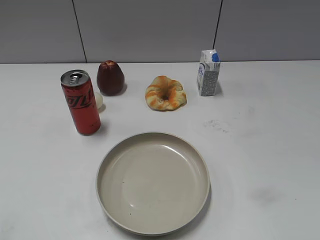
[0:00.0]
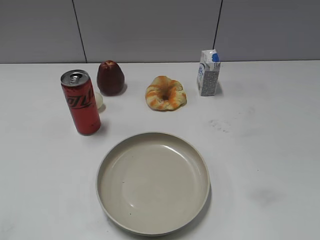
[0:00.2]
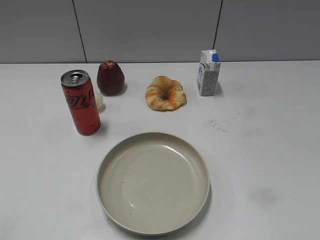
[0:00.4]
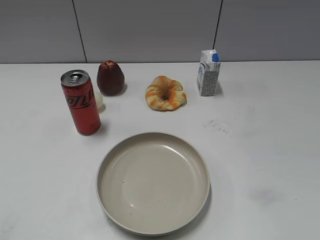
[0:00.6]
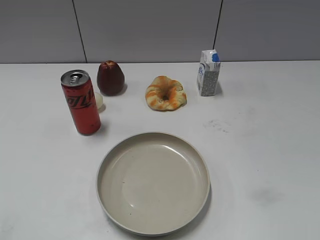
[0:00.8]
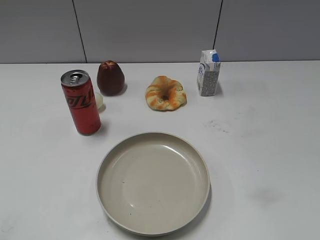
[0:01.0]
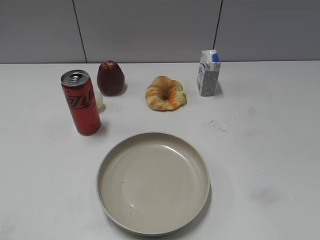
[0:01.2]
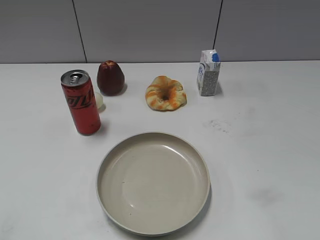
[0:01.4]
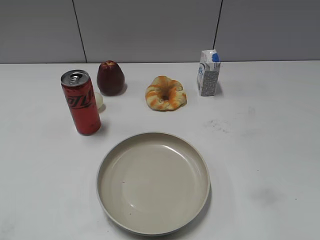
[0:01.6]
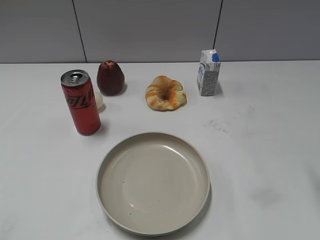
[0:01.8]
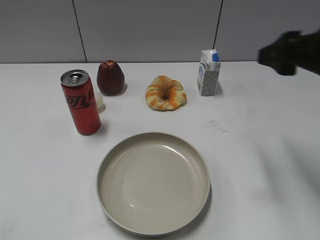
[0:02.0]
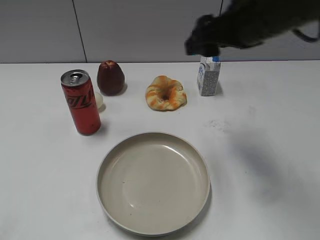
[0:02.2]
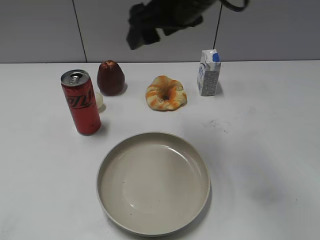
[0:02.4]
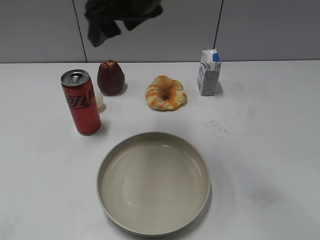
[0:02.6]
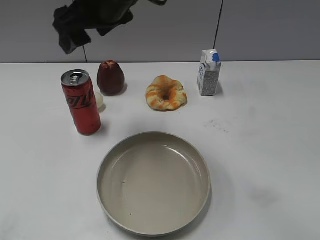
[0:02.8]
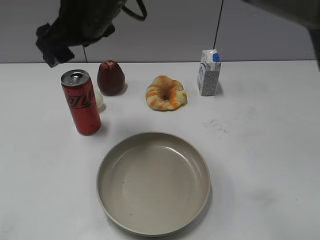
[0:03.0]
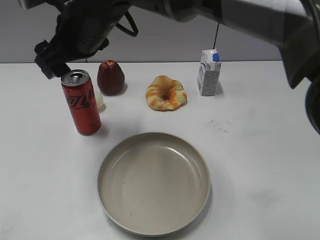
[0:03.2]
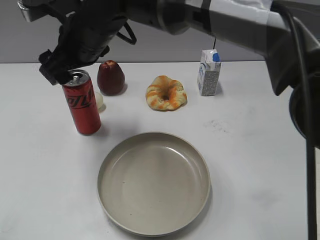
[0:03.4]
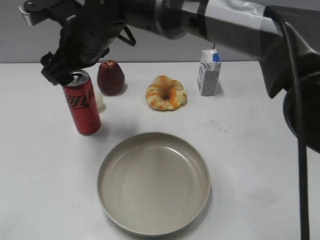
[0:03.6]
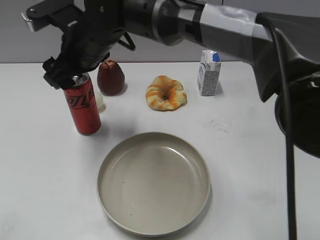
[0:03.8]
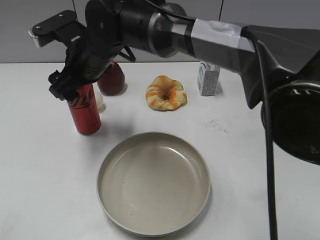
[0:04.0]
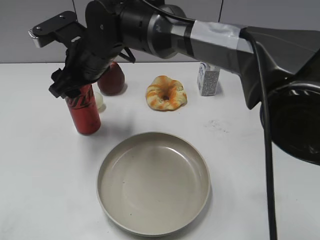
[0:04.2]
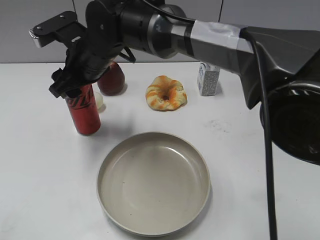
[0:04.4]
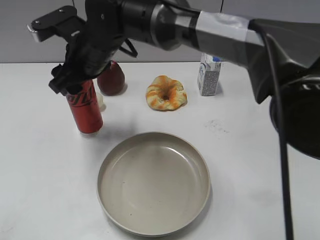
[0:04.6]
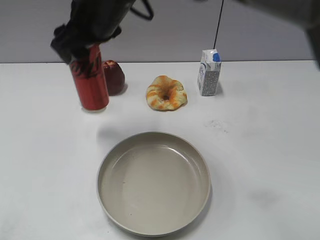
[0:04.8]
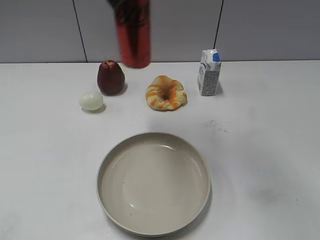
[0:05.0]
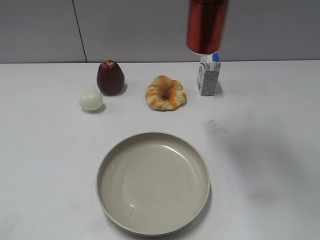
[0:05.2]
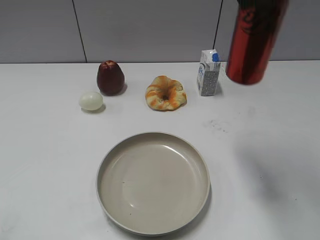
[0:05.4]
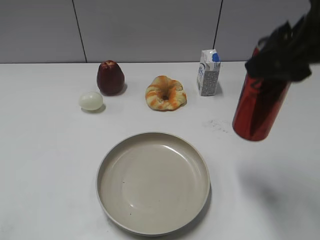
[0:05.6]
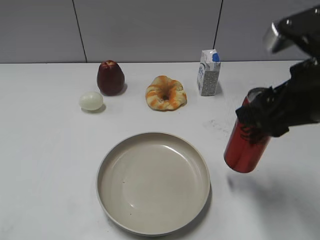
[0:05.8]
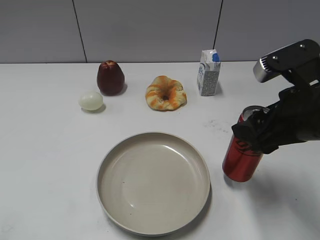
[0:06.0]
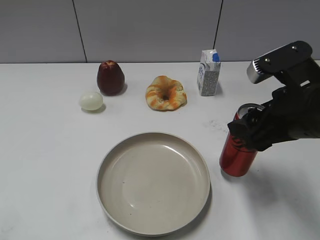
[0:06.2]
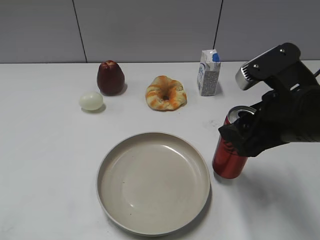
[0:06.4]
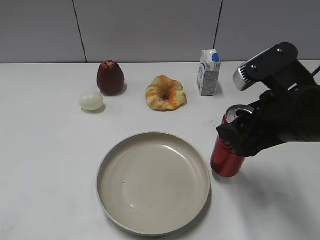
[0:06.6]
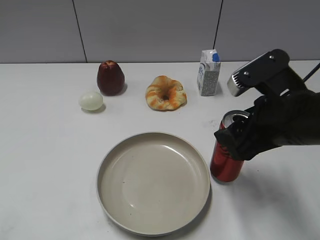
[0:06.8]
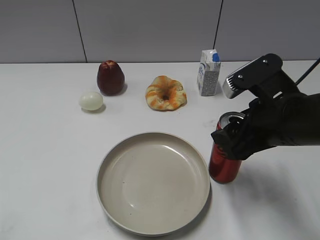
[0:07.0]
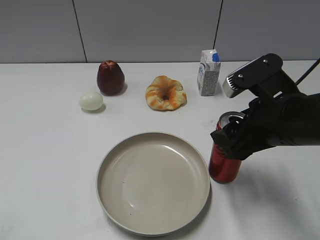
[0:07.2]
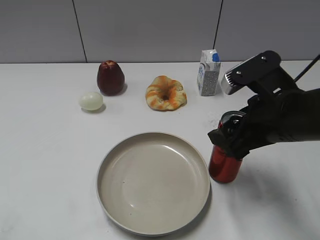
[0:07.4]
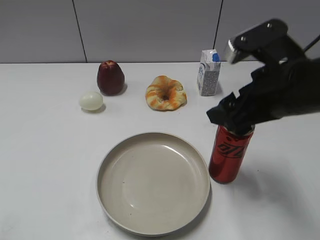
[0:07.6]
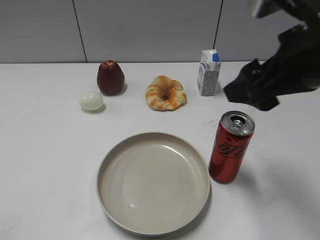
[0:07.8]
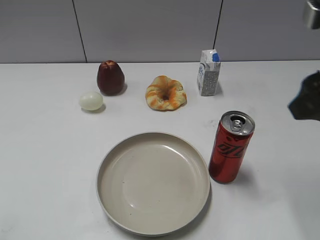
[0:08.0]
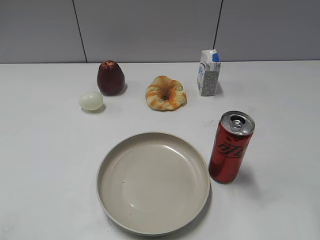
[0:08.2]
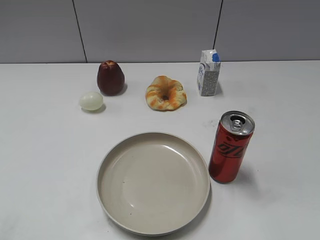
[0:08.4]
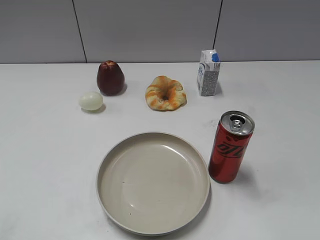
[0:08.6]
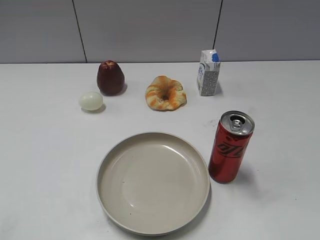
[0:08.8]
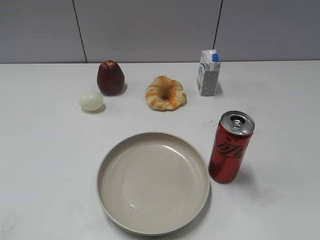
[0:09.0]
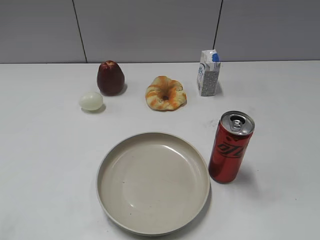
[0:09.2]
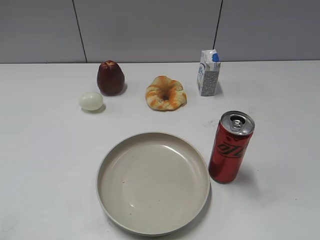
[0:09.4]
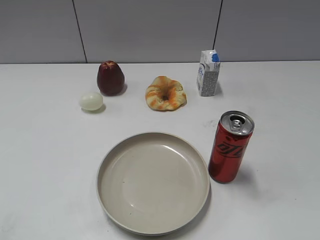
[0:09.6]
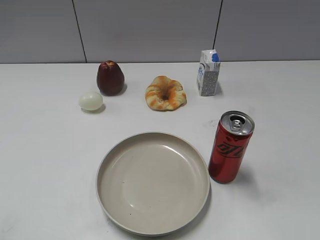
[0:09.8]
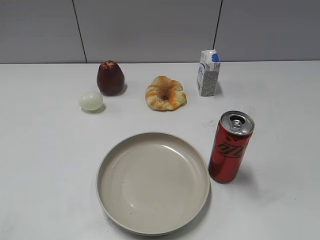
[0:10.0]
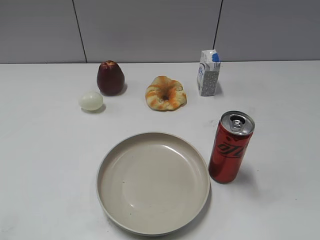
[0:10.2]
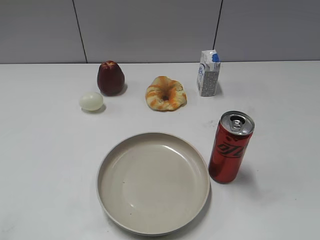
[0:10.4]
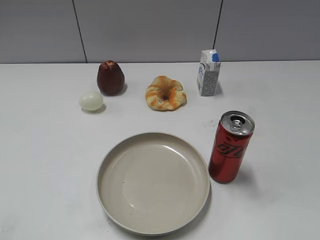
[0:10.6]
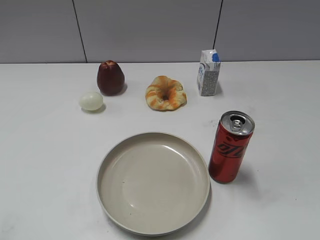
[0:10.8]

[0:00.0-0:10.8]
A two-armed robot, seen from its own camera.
Step, 0:01.0 to 0:04.4: Grasp the cola with right gripper.
Step, 0:04.6 to 0:07.6: Place the cola on the table with right gripper.
0:01.6 to 0:03.0: The right gripper shifts approximately 40 cm to the left and forward, and opens its fingers.
0:03.0 to 0:04.6: The right gripper moves downward, some 5 cm, and closes its fingers.
0:04.6 to 0:06.2: The right gripper goes roughly 30 cm to the right and backward.
0:06.2 to 0:07.8: The right gripper heads upward, covering some 10 cm, and opens its fingers.
0:07.8 to 0:09.2: The right gripper heads backward and to the right, covering some 20 cm, and closes.

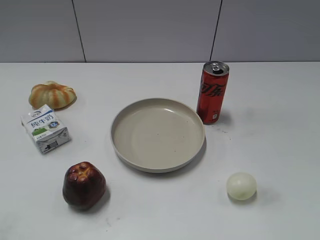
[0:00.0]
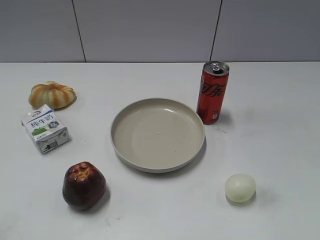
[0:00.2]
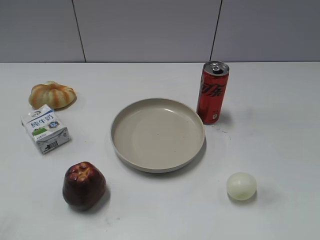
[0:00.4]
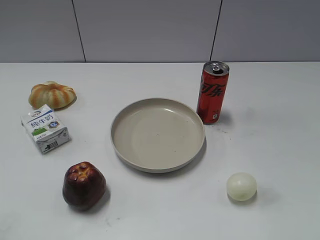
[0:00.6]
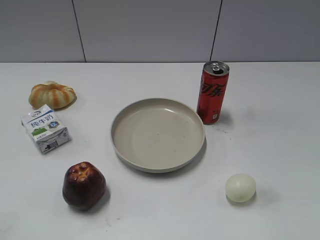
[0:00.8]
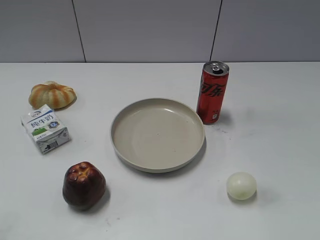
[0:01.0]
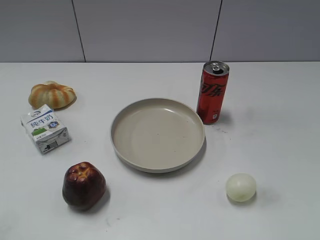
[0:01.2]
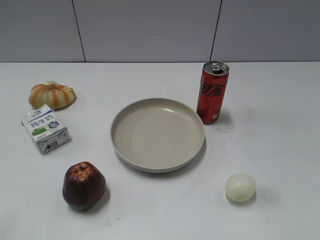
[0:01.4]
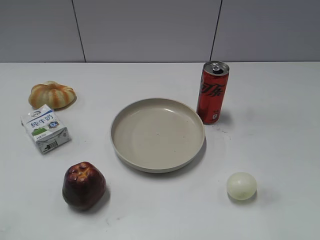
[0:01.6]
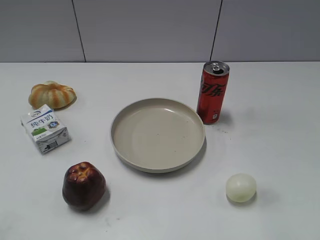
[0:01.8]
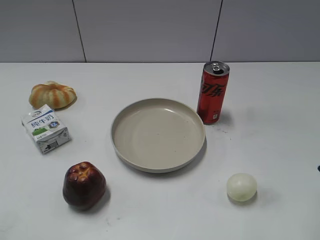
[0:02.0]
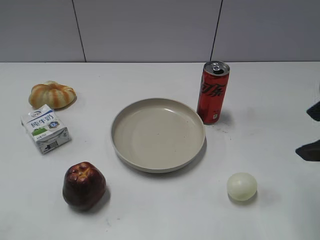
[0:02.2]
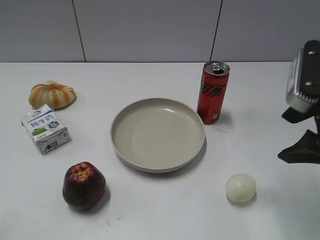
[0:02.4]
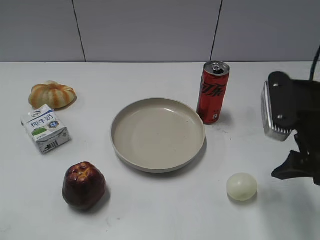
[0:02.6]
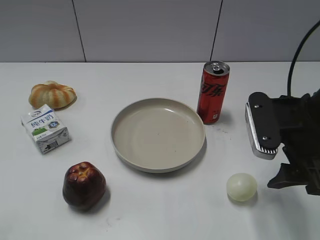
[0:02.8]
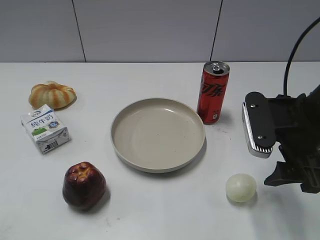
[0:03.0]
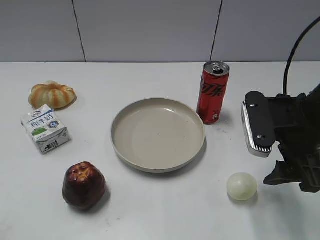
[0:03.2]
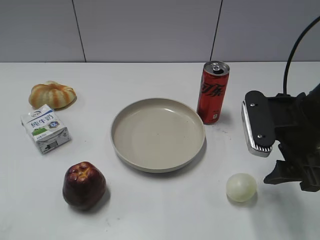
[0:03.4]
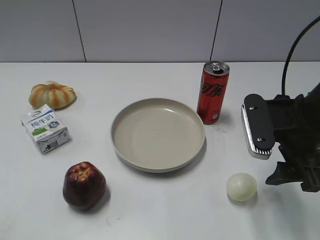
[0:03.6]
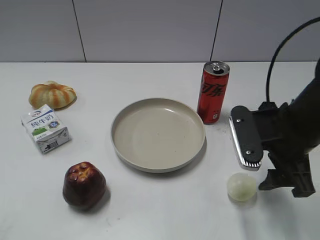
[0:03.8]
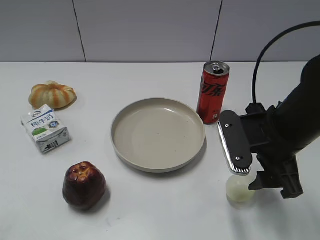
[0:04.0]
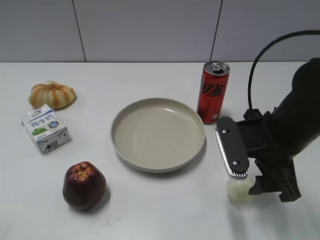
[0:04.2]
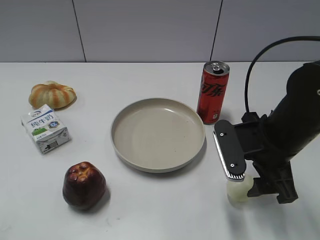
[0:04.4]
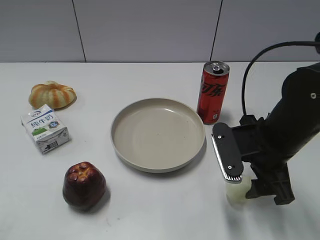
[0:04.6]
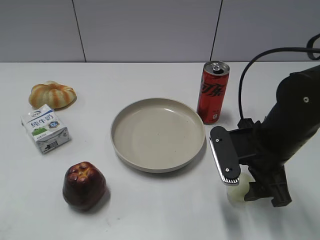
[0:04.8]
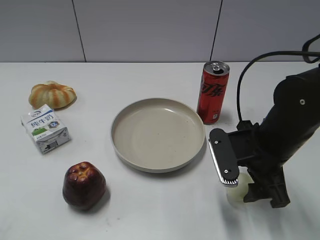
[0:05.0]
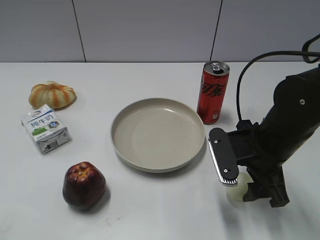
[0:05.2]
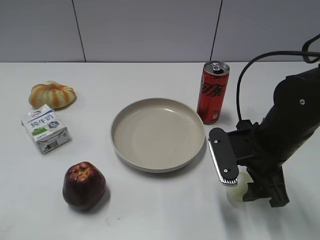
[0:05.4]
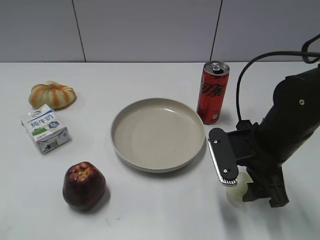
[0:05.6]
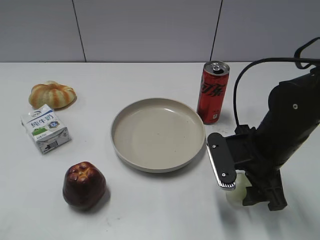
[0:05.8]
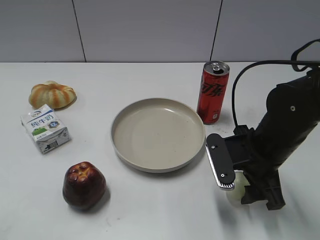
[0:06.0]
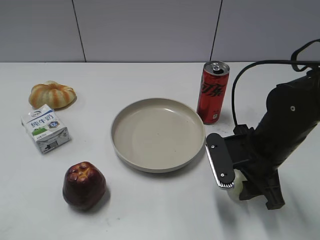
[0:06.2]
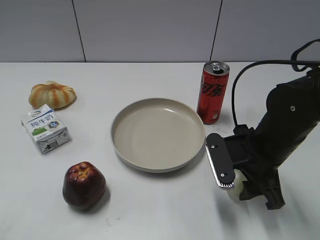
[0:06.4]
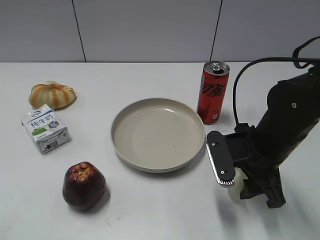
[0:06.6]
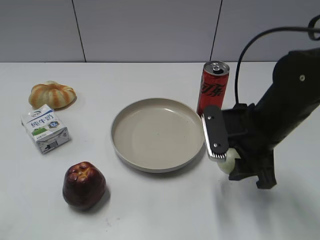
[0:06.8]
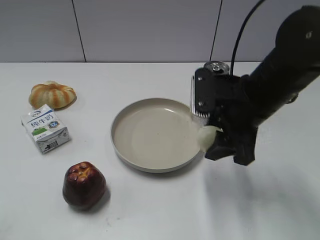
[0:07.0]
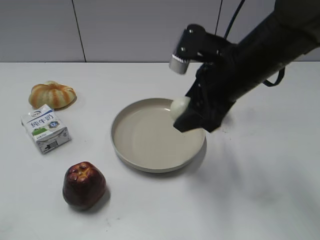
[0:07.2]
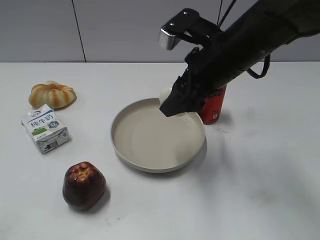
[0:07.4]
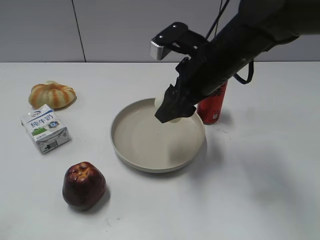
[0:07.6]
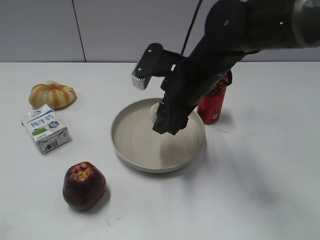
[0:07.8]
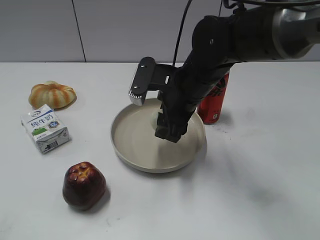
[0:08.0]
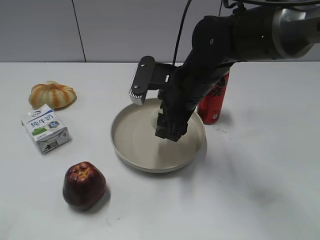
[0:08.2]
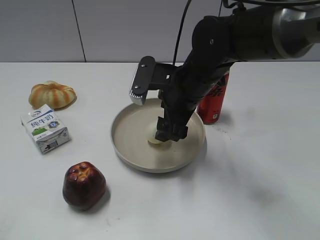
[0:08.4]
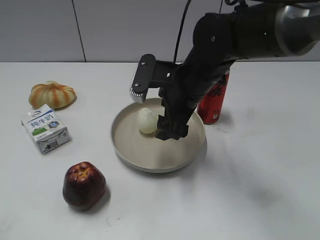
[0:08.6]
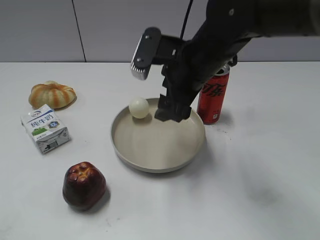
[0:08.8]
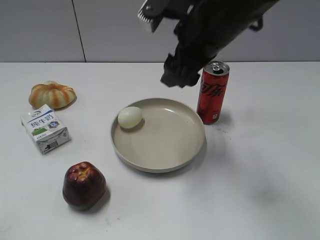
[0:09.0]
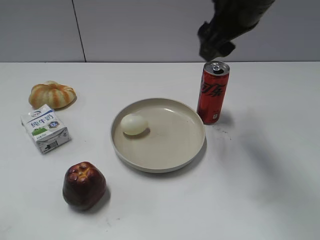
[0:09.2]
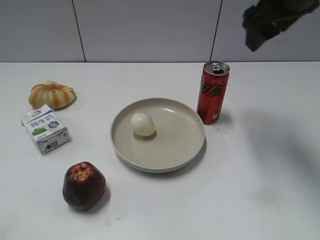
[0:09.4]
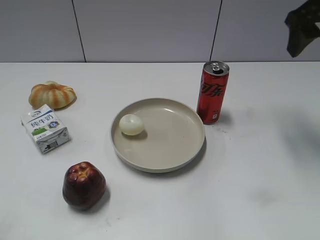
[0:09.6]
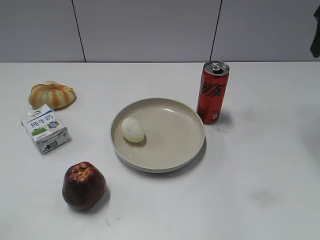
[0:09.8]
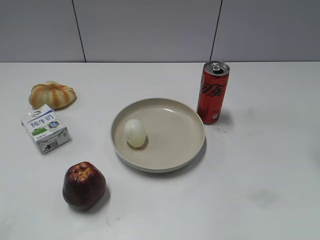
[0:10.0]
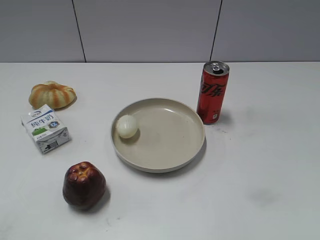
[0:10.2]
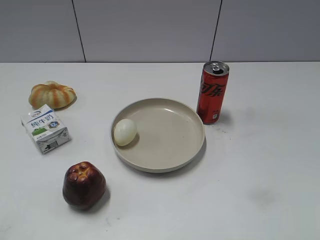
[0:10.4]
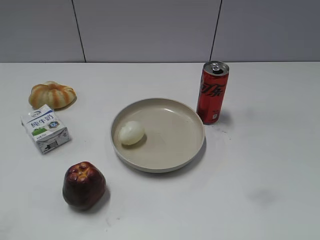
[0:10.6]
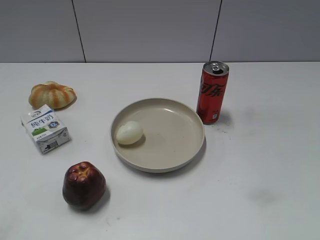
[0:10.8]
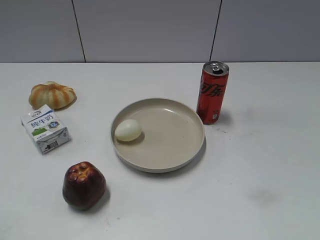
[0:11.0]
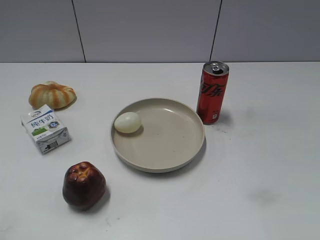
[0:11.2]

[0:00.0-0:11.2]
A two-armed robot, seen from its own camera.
Step, 0:01.0 to 0:06.2: Grasp the egg with right gripper.
Step, 0:06.4 to 0:08.6: Place the egg on the plate with right gripper.
0:01.6 to 0:03.2: The right gripper moves forward, to the left and downward, roughly 20 cm.
0:03.2 to 0:04.8: The right gripper heads downward, covering roughly 5 cm.
0:04.8 to 0:06.4: The right gripper closes up.
0:06.4 to 0:08.0: The right gripper shifts approximately 15 cm to the left and forward.
0:08.0 to 0:09.6: The right gripper goes roughly 25 cm to the right and upward, and opens up.
0:09.6 to 0:11.2: The right gripper is displaced backward by roughly 35 cm.
